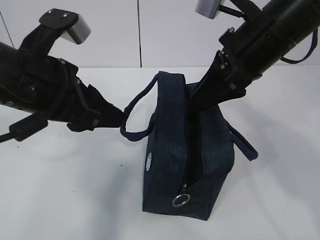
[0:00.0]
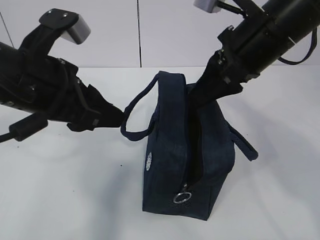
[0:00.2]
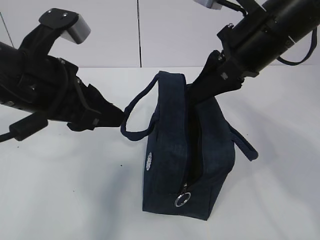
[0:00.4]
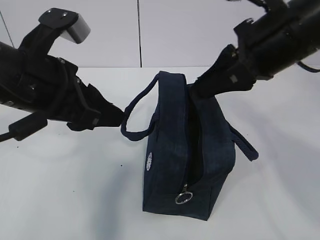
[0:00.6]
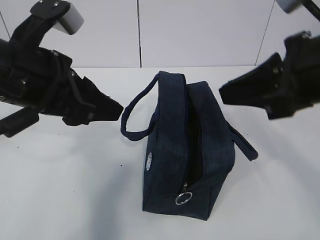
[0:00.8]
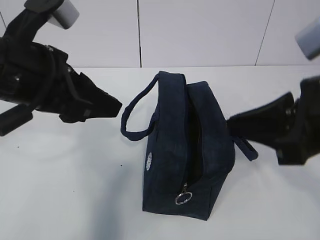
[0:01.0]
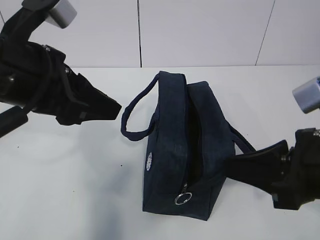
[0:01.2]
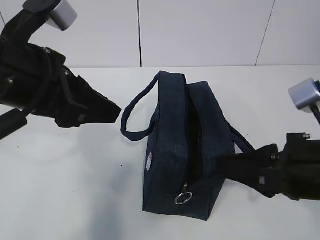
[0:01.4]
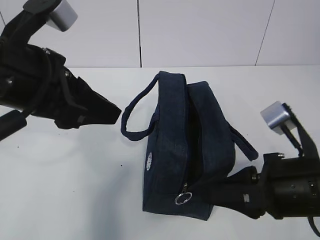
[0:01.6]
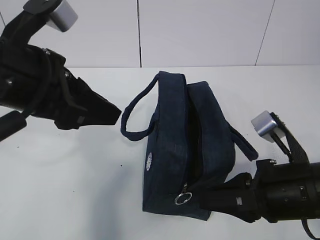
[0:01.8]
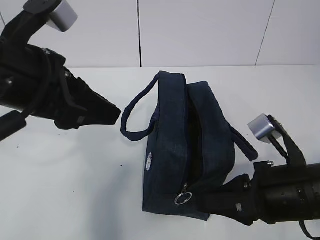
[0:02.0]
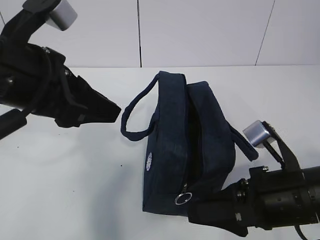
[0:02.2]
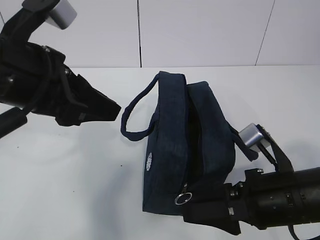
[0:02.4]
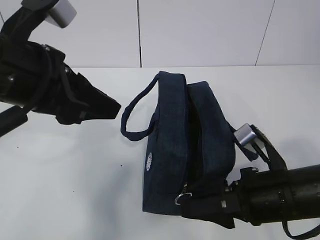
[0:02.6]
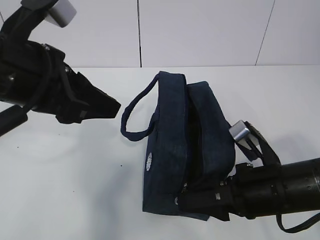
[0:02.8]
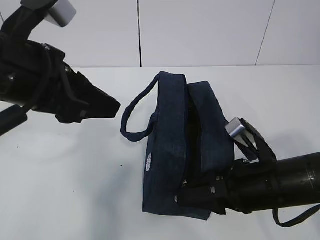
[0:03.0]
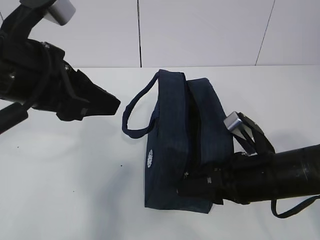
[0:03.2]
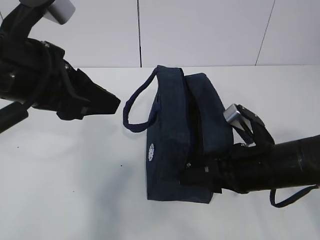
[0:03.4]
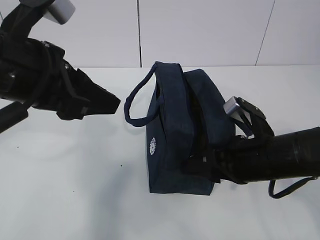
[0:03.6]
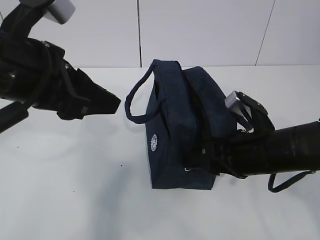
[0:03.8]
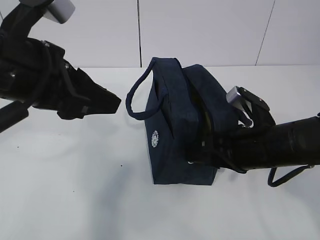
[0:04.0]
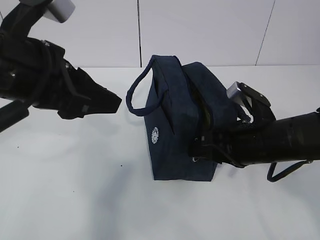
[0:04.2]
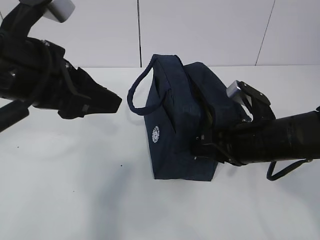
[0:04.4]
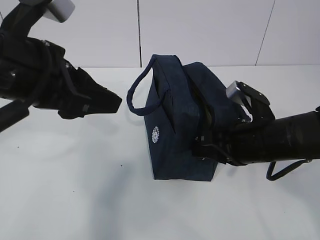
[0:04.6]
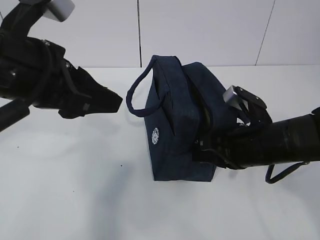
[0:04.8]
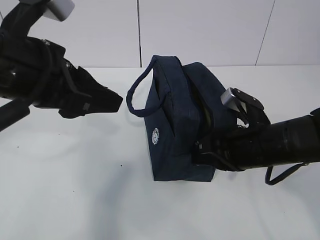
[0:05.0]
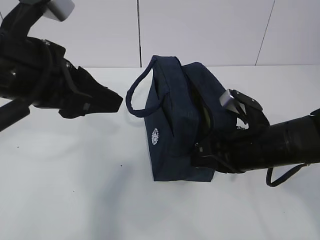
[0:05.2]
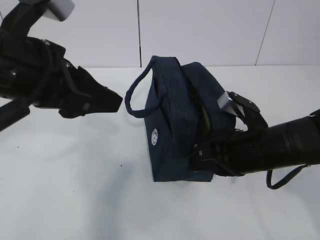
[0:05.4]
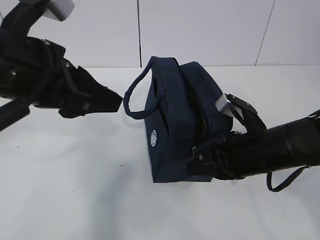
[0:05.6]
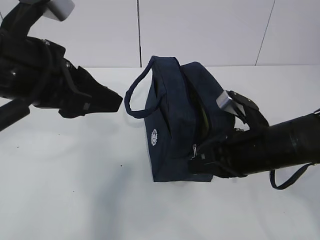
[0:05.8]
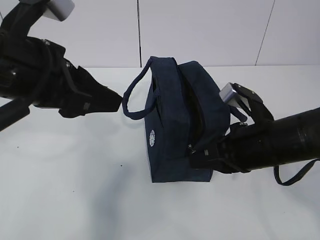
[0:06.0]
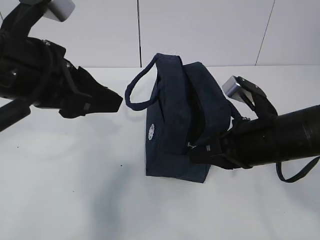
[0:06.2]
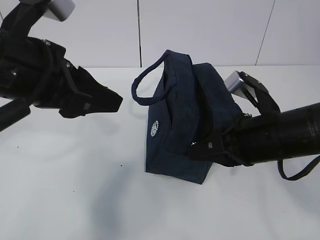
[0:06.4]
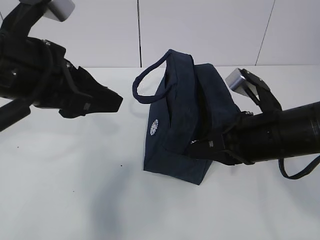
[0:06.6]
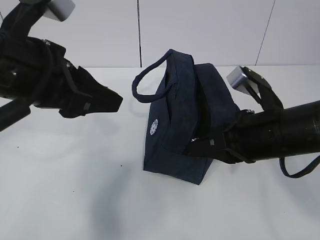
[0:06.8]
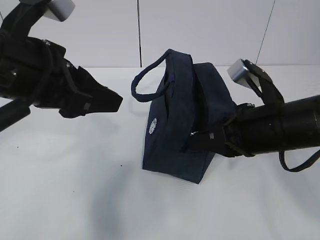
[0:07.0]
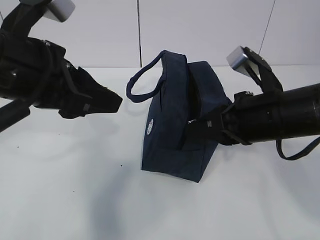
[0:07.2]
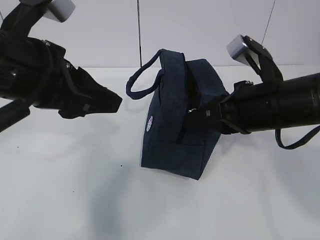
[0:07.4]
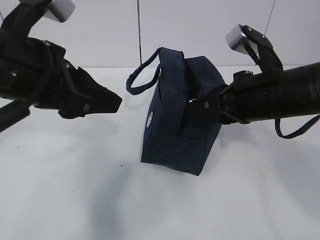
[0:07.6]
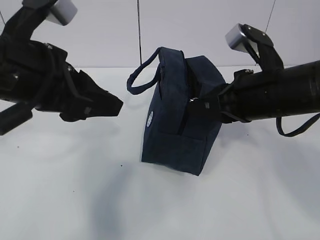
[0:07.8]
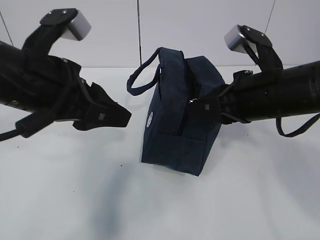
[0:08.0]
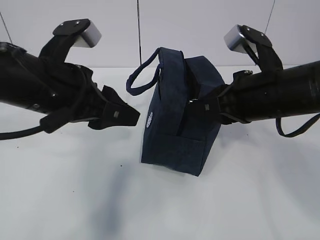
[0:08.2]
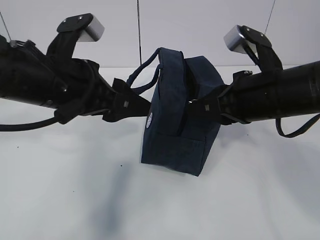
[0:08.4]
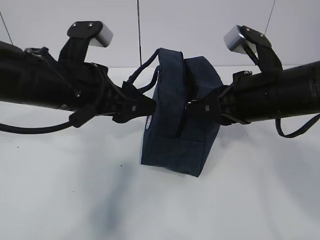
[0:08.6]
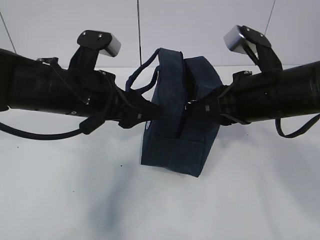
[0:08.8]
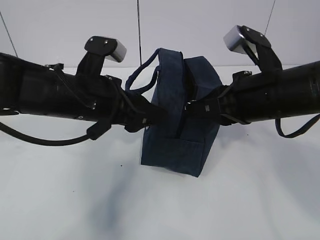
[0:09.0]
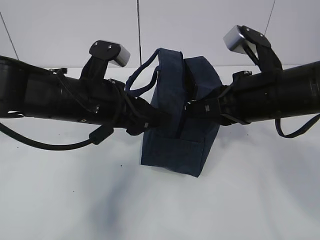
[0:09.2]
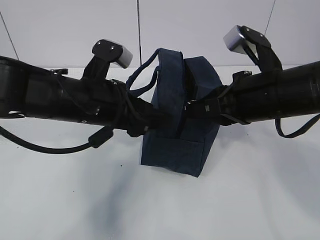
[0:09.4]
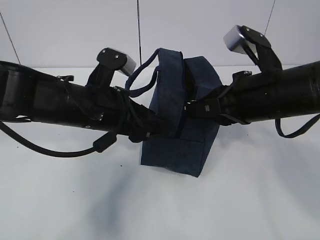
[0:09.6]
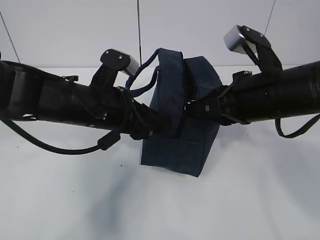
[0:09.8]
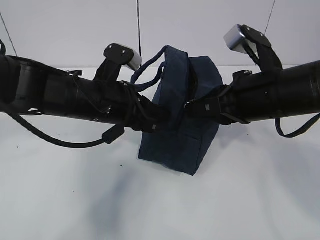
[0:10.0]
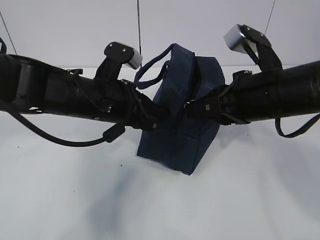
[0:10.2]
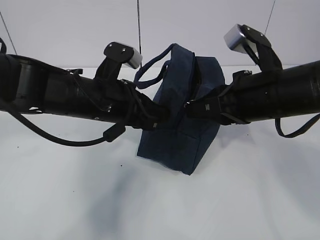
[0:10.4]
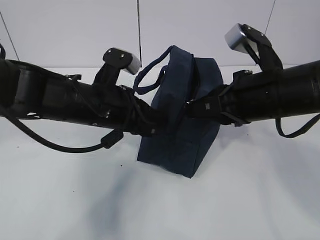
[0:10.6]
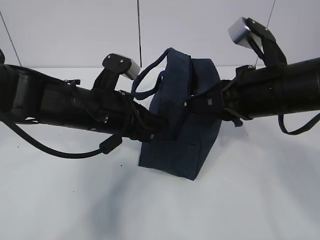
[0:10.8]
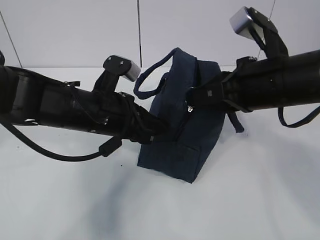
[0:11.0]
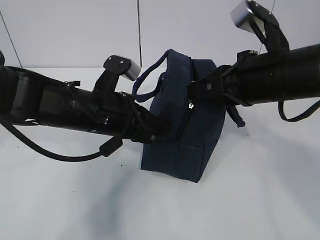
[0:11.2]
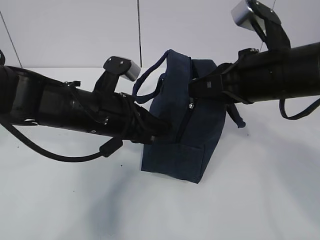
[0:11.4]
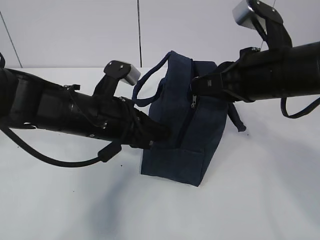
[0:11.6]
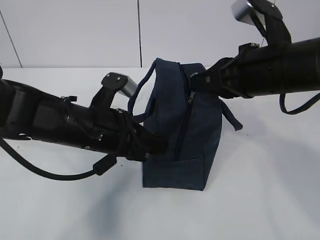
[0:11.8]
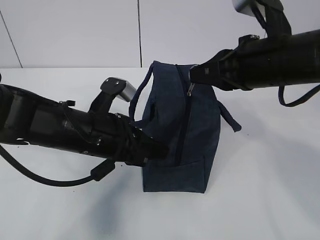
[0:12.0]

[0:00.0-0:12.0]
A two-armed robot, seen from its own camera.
Step, 0:03.6 to 0:08.2: Pull the zipper with your right hand.
Step, 0:08.4 to 0:09.6: Grab the lunch bag with your left hand.
0:00.0 to 0:01.6: The right gripper shifts some 15 cm backward and downward, and closes up.
0:01.6 to 0:03.0: The right gripper moves downward, some 5 cm, and opens its fingers.
0:03.0 to 0:04.4: The right gripper moves forward, approximately 5 cm, and closes its fingers.
0:04.4 to 0:06.0: The right gripper closes its fingers.
0:06.0 to 0:07.6: The right gripper is displaced upward by approximately 5 cm.
0:07.6 to 0:09.0: The left gripper is displaced downward and forward by about 10 cm, and opens up.
0:09.0 to 0:10.4: The left gripper closes up.
0:10.4 to 0:12.0: The left gripper ends up approximately 5 cm from where it was.

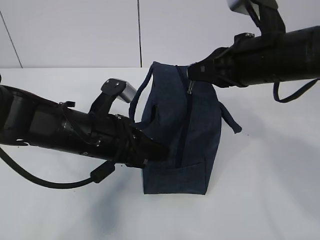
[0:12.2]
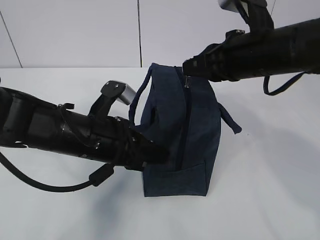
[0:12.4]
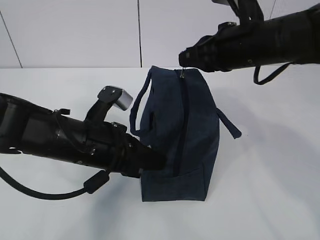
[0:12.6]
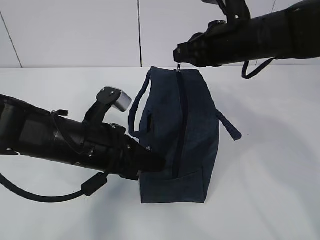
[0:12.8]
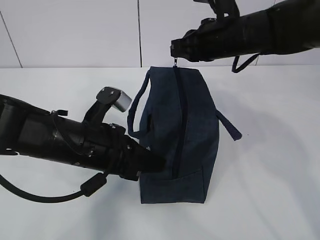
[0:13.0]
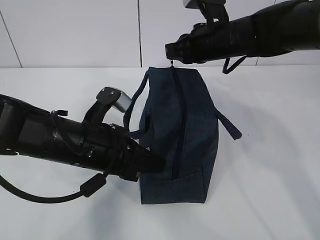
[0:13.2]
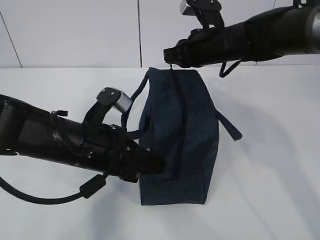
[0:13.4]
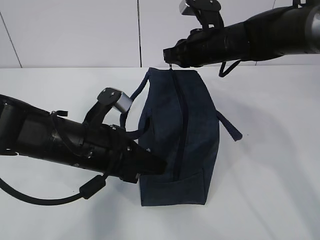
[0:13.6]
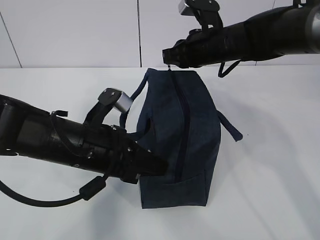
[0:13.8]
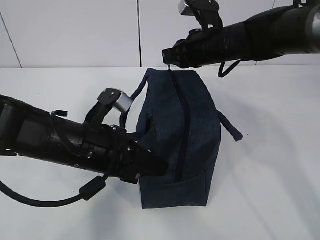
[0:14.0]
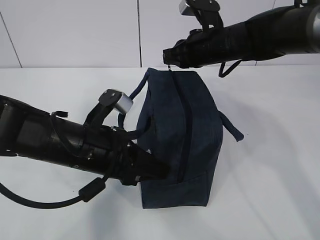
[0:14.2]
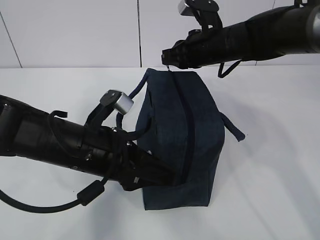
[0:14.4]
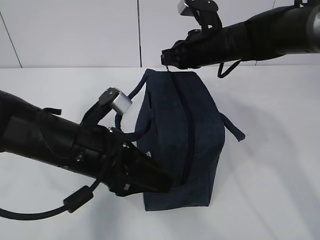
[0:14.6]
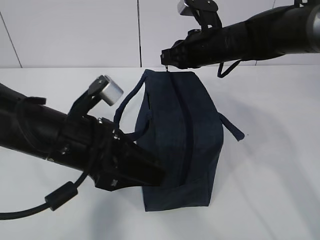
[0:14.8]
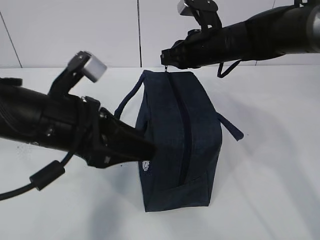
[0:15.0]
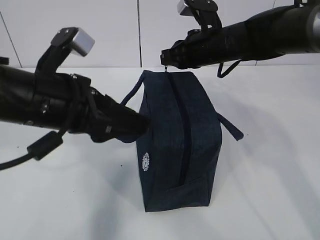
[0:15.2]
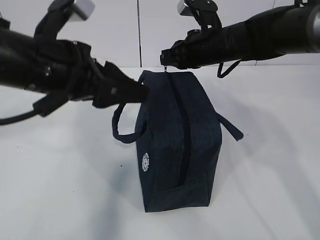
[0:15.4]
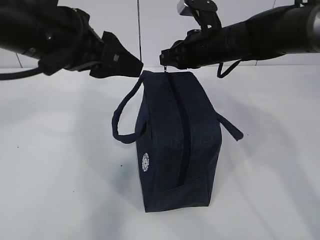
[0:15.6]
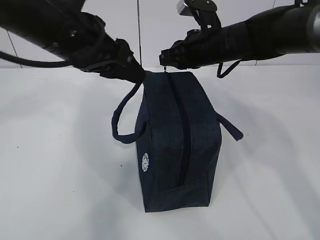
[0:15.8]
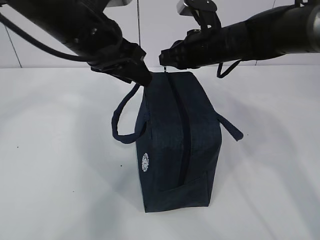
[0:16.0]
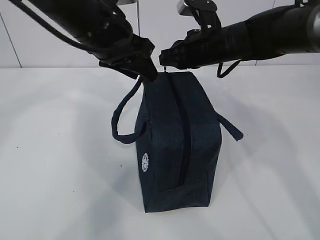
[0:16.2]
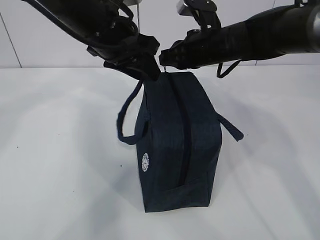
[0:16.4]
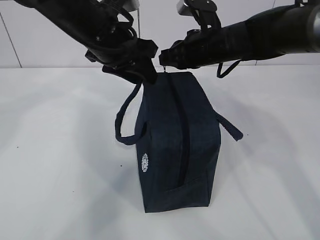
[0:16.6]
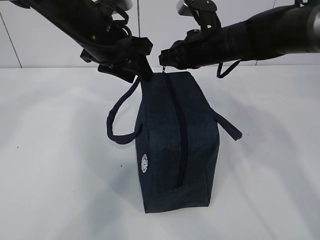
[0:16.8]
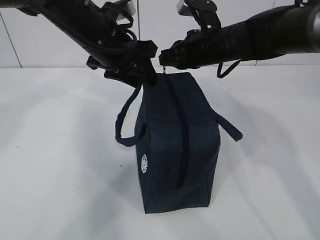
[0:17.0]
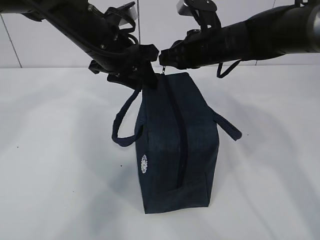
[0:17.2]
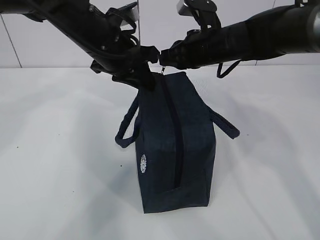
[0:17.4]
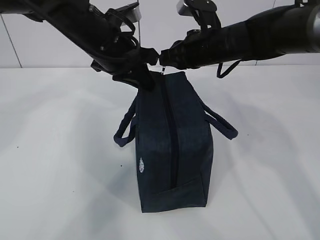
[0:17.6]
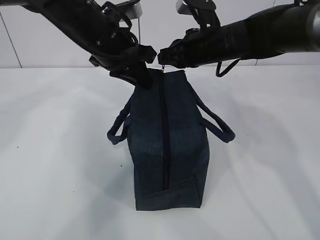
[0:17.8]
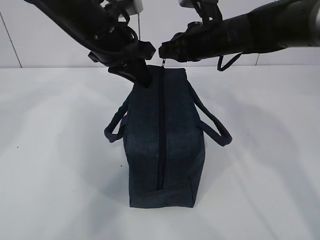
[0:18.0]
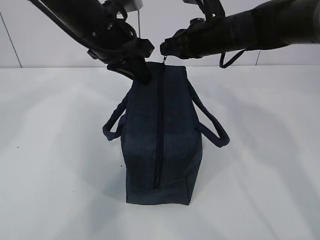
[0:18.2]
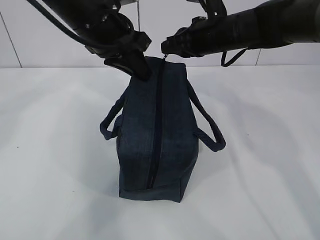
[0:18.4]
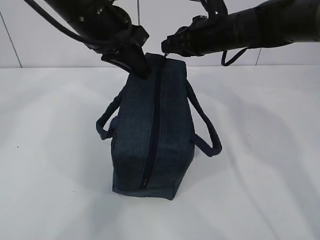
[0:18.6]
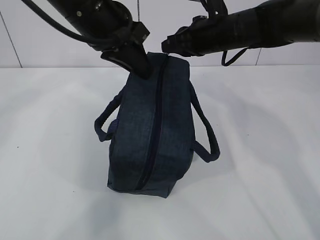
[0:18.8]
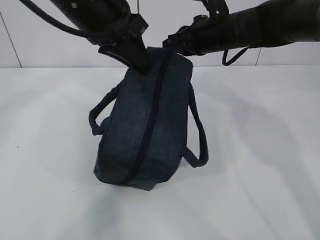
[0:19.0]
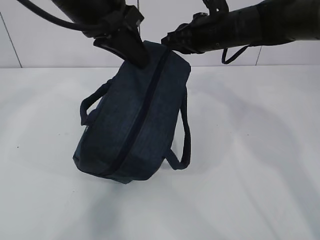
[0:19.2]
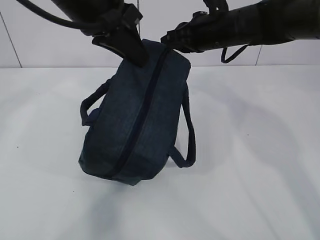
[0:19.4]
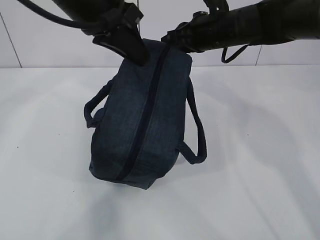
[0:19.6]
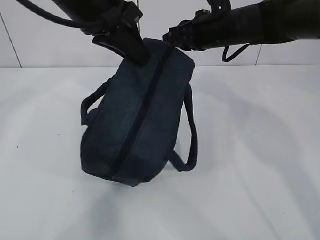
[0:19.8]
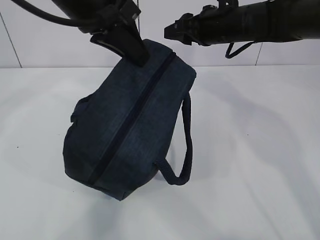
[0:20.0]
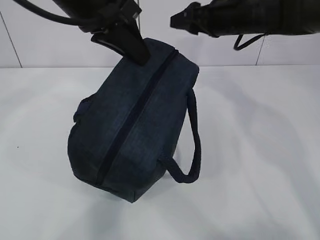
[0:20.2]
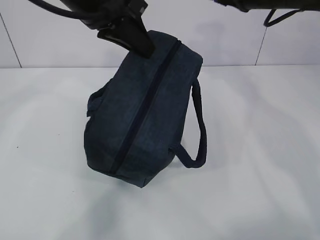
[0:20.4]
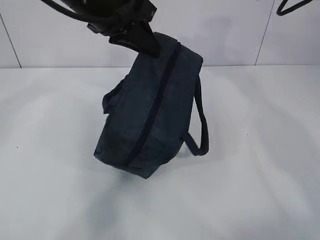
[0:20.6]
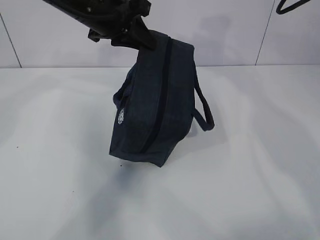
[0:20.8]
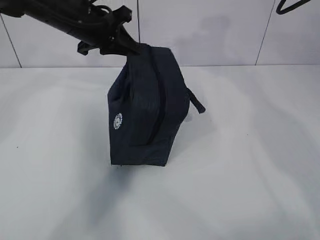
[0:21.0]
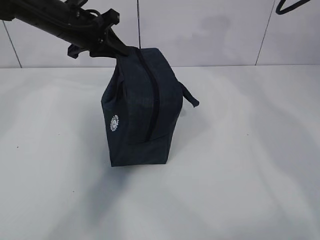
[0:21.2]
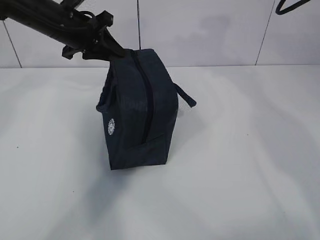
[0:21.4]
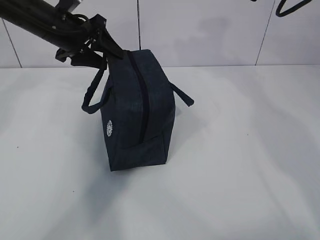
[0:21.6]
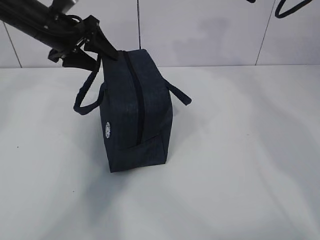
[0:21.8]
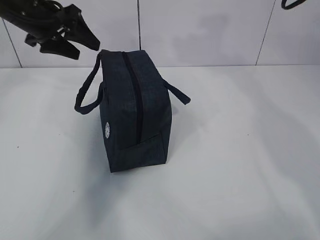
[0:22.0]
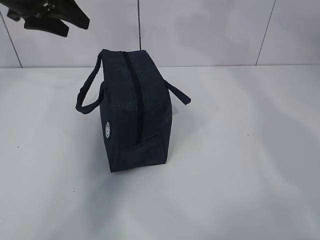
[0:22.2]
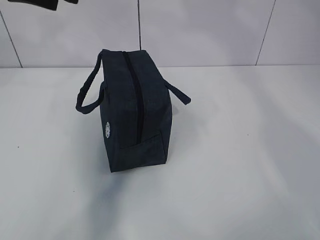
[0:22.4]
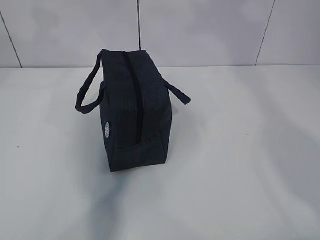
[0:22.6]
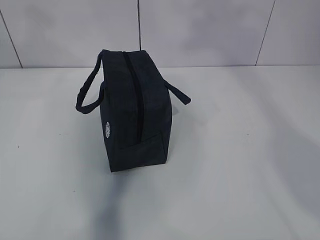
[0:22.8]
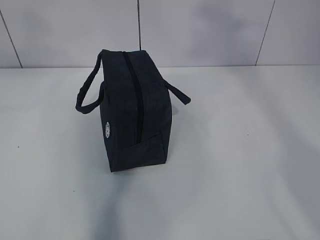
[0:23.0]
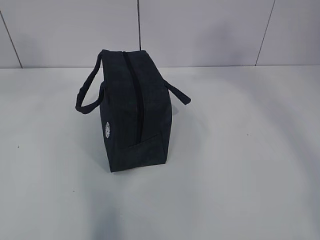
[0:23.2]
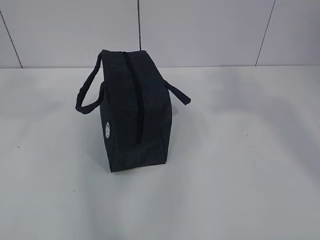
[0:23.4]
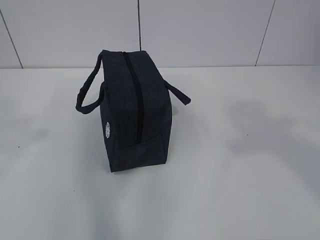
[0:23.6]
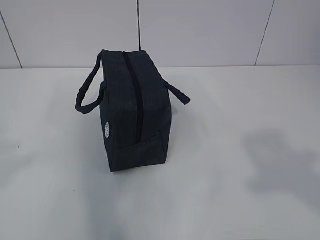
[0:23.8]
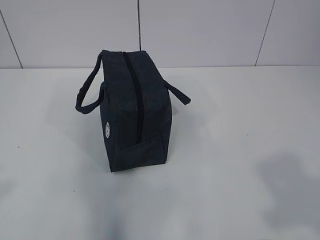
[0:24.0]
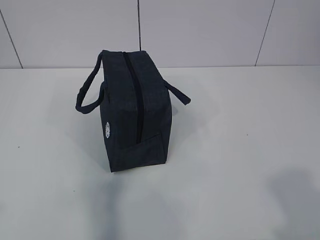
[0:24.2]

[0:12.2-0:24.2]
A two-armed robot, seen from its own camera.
0:12.2 to 0:13.8: The right gripper is displaced forward by some 15 cm.
0:13.8 to 0:15.2: The left gripper is displaced upward by about 10 cm, and opens.
0:15.2 to 0:16.6: The left gripper moves forward, about 15 cm.
0:16.6 to 0:18.2: The left gripper closes.
0:18.2 to 0:19.8: The left gripper moves upward, some 5 cm.
0:19.8 to 0:21.2: The right gripper goes approximately 10 cm upward and to the right, and opens up, while the left gripper goes some 15 cm forward, downward and to the left.
0:21.2 to 0:22.6: The right gripper is displaced upward and backward by some 25 cm, while the left gripper is displaced upward, backward and to the left by about 20 cm, and opens its fingers.
0:22.6 to 0:24.2: The right gripper goes approximately 40 cm backward and downward.
